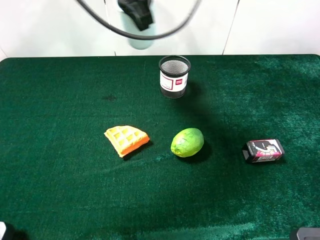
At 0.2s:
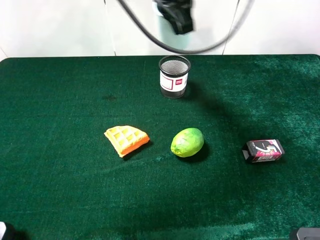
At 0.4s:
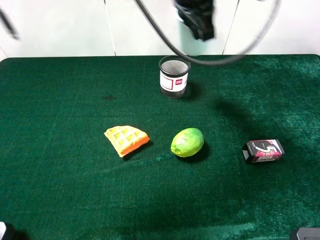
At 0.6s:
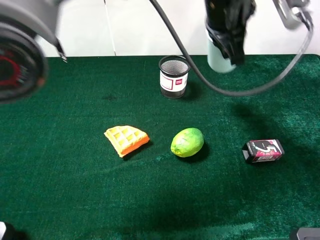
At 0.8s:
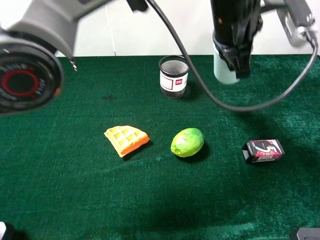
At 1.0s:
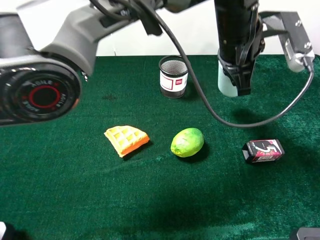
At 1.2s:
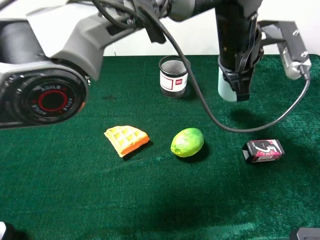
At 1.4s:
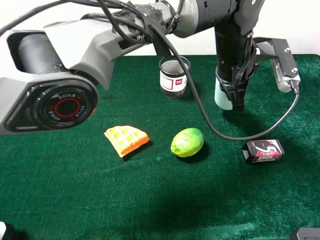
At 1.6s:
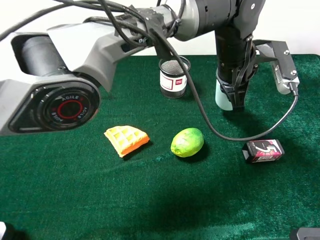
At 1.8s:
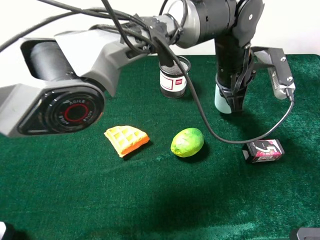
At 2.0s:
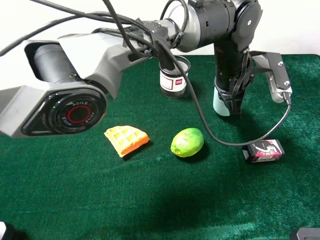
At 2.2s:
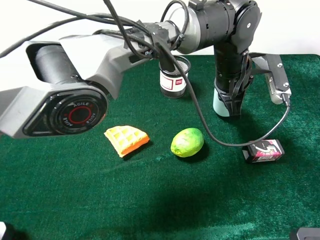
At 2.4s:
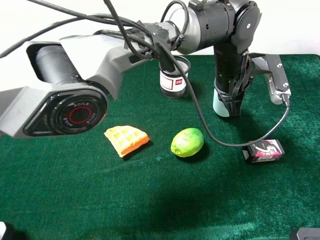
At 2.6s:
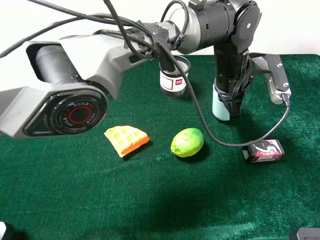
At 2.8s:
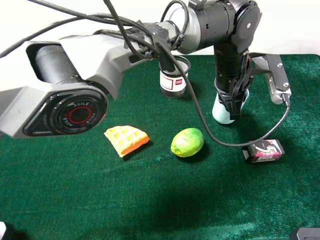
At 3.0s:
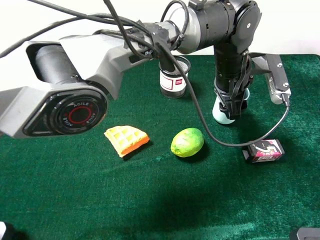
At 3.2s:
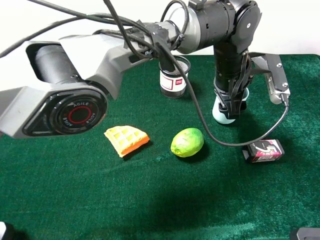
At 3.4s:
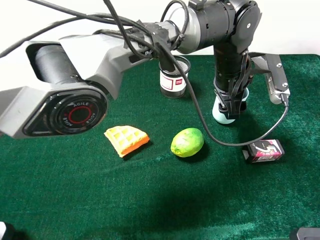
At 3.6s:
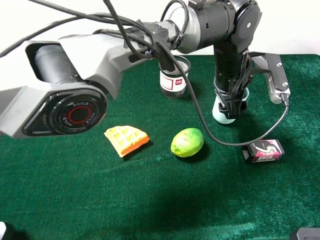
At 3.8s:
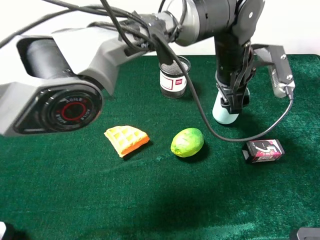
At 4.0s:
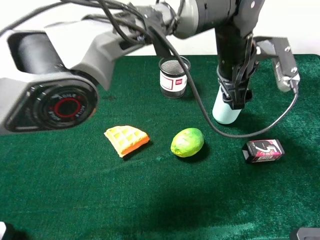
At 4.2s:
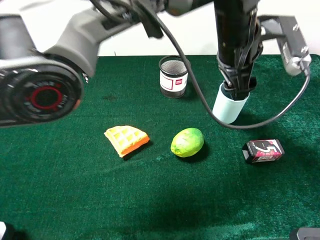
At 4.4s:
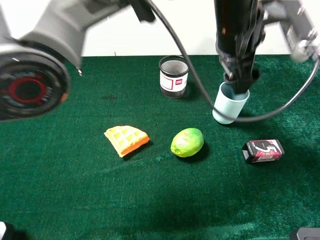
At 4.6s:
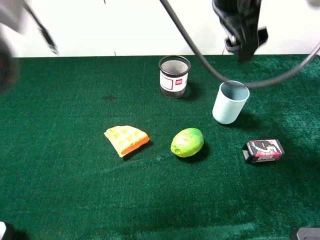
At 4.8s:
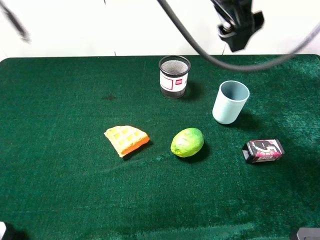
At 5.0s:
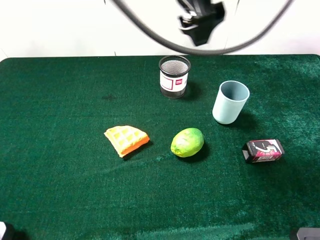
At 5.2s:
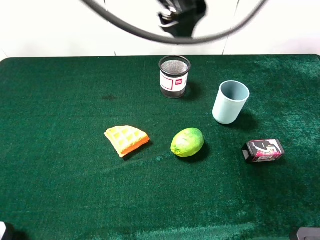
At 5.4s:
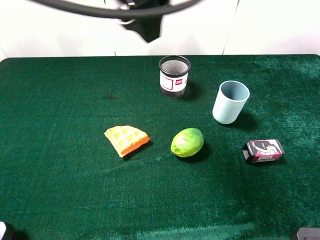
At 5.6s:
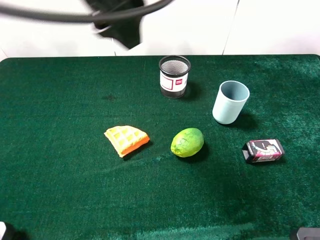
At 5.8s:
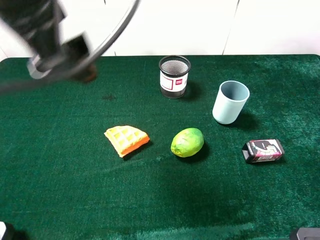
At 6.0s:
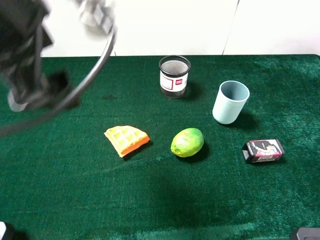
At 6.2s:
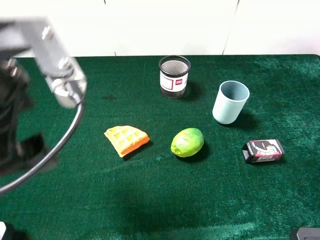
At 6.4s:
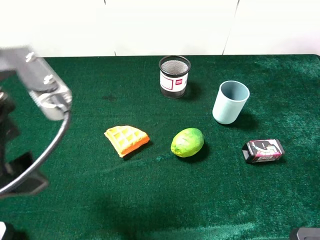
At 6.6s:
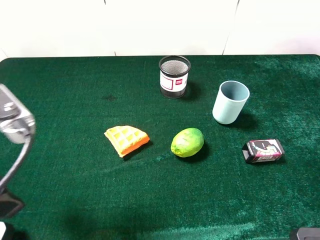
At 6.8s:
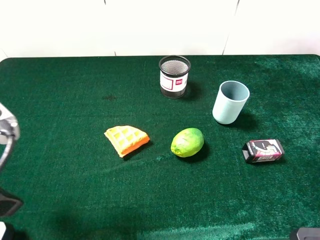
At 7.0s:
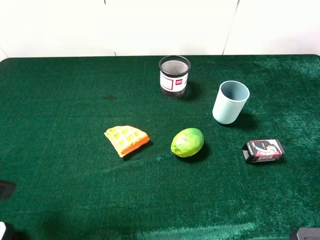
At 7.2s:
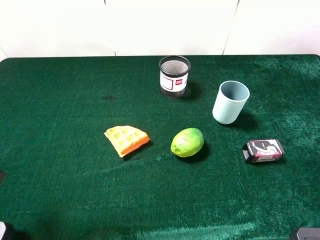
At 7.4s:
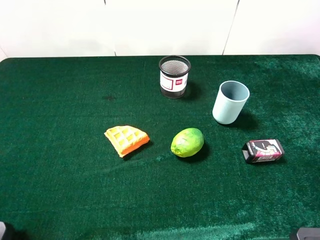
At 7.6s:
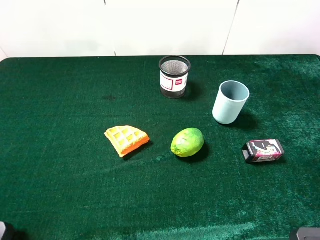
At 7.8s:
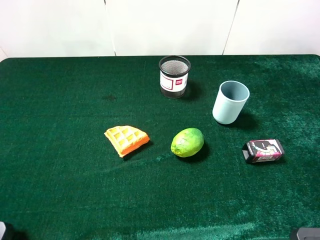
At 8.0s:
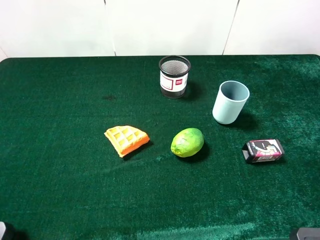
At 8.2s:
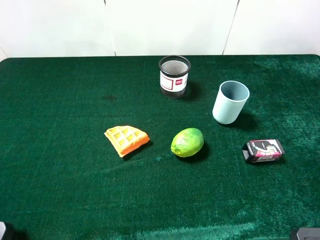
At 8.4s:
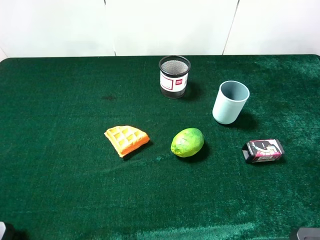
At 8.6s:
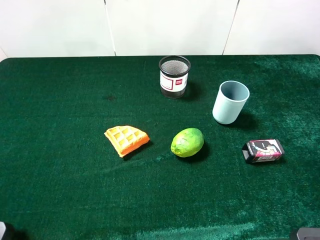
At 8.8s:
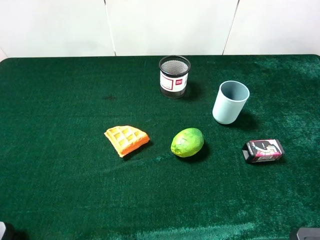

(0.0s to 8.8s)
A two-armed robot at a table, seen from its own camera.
Task of the whole recording: the gripper move the object.
Step, 0.0s - 4.0s: Place the cyan cup on the table with the left gripper.
0.0s - 1.4s: The left gripper heads to the right and downward, covering approximately 20 cm.
1.4s - 3.0s: The left gripper opens its fingers.
3.0s - 4.4s: The left gripper goes some 10 cm upward.
4.4s - 5.8s: The left gripper goes some 25 cm to the left and backward.
5.8s - 7.4s: The left gripper is displaced to the left, backward and downward by roughly 25 cm.
